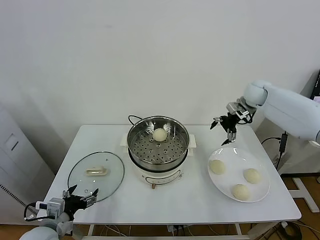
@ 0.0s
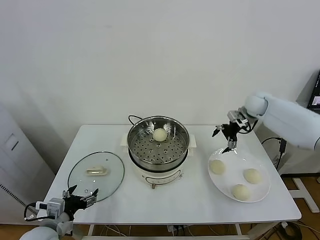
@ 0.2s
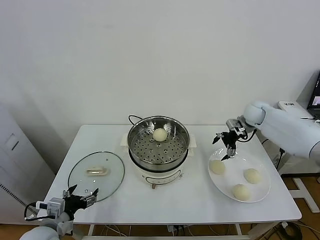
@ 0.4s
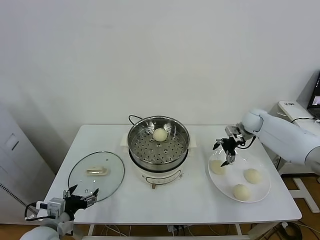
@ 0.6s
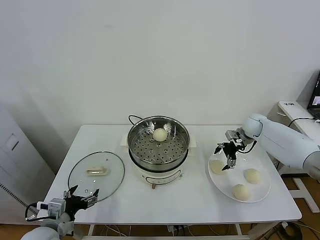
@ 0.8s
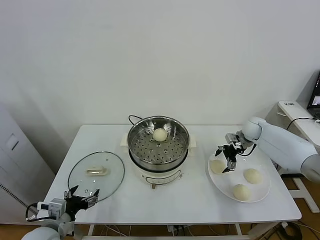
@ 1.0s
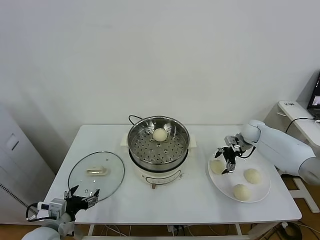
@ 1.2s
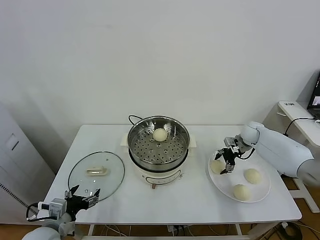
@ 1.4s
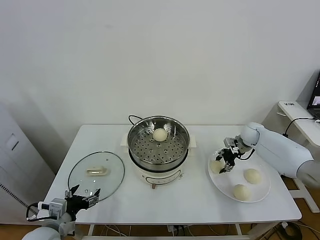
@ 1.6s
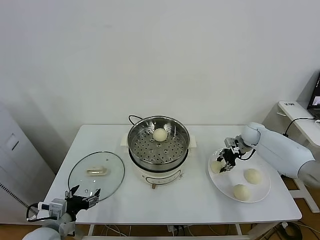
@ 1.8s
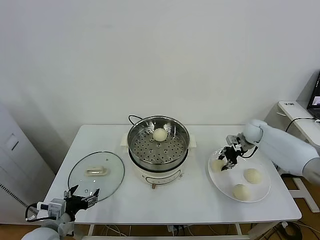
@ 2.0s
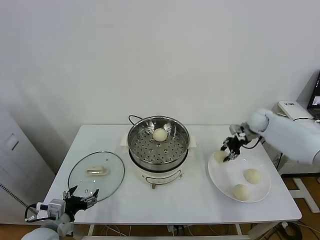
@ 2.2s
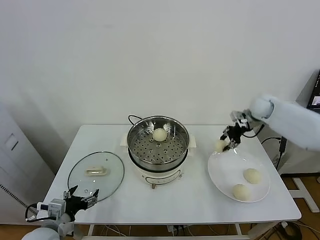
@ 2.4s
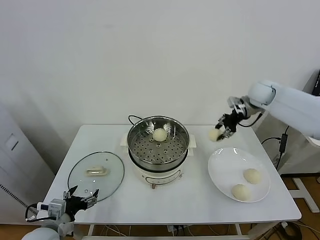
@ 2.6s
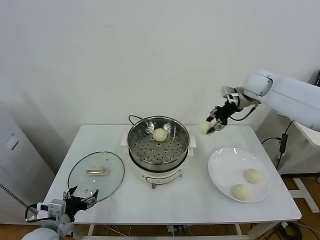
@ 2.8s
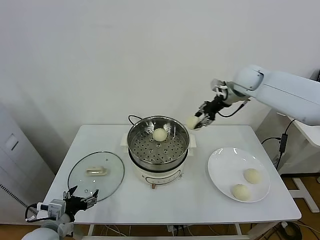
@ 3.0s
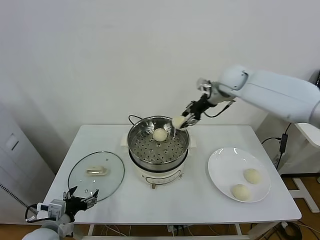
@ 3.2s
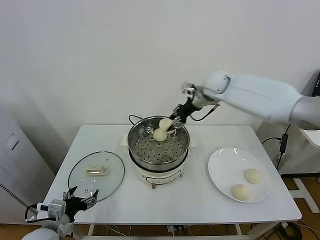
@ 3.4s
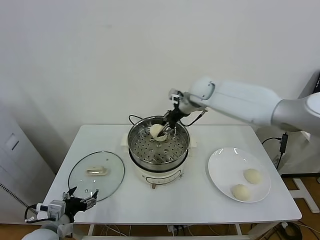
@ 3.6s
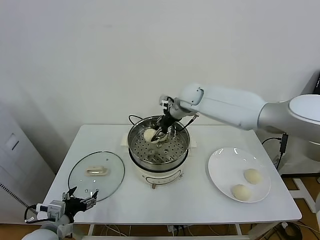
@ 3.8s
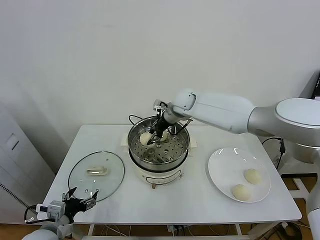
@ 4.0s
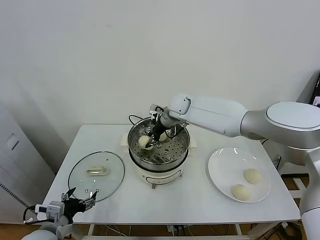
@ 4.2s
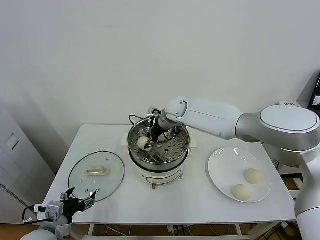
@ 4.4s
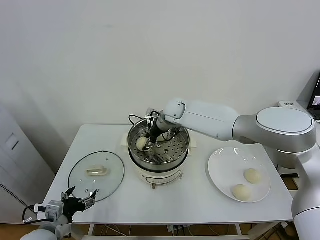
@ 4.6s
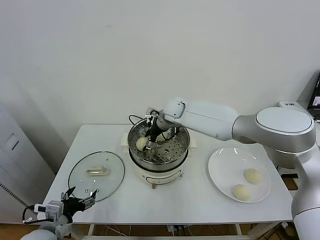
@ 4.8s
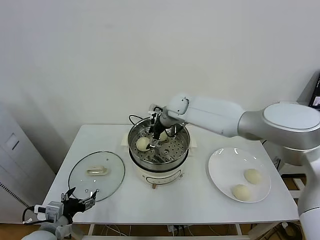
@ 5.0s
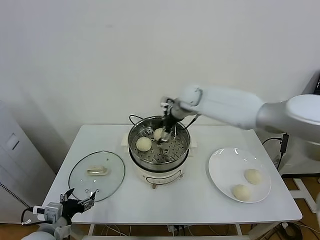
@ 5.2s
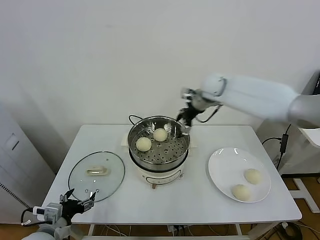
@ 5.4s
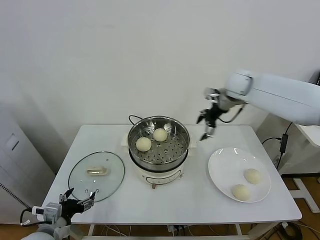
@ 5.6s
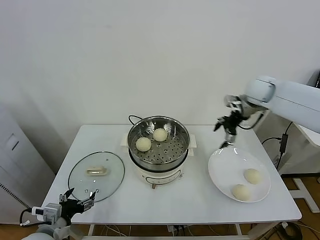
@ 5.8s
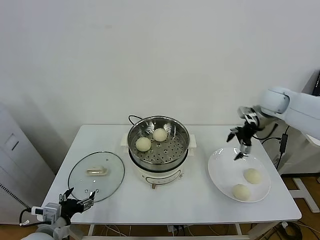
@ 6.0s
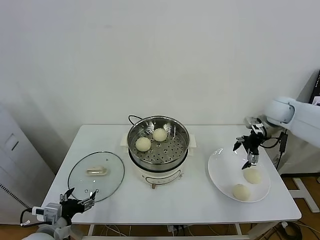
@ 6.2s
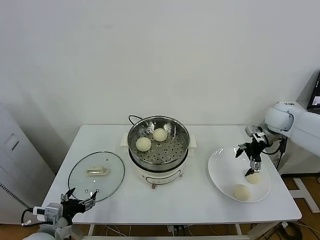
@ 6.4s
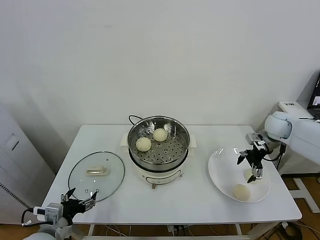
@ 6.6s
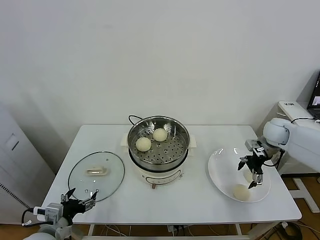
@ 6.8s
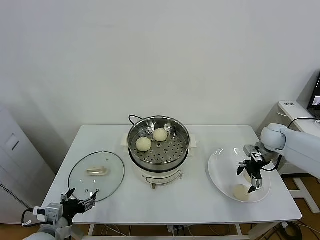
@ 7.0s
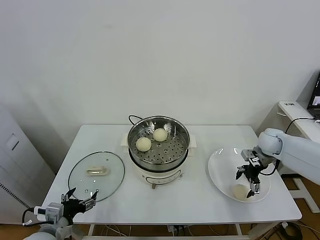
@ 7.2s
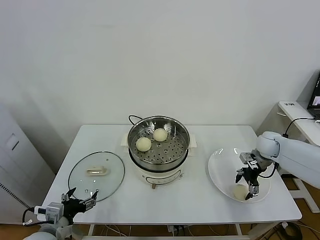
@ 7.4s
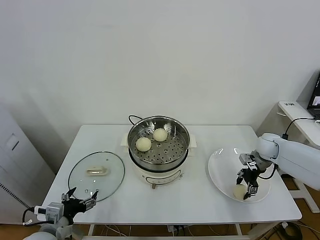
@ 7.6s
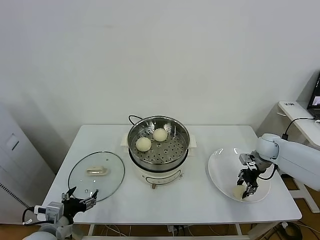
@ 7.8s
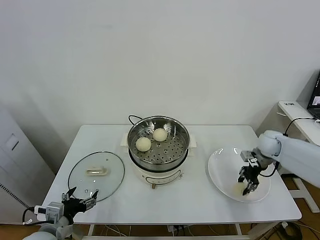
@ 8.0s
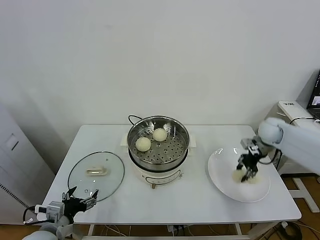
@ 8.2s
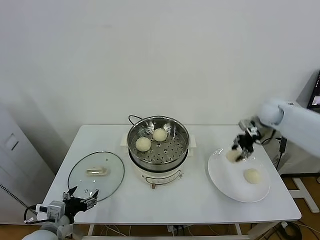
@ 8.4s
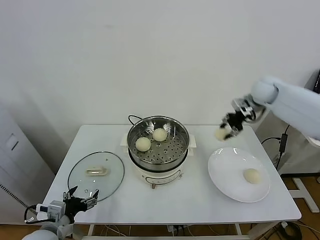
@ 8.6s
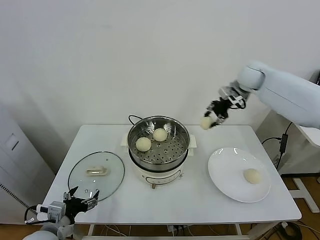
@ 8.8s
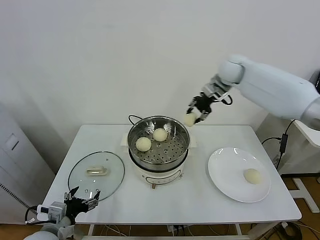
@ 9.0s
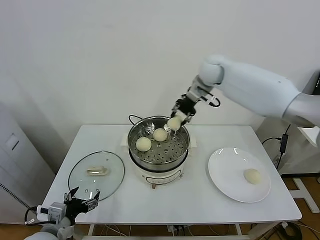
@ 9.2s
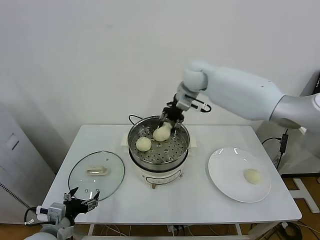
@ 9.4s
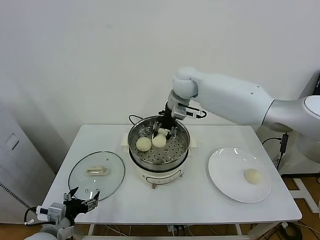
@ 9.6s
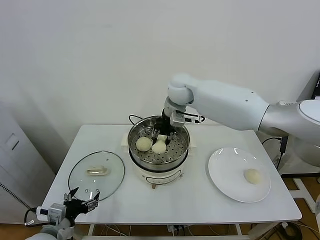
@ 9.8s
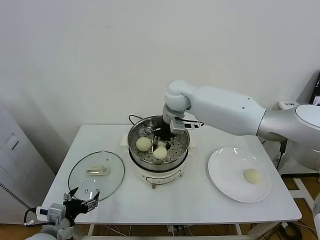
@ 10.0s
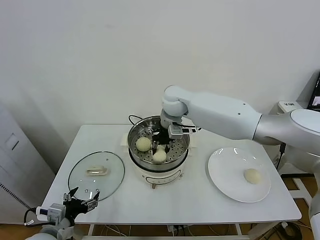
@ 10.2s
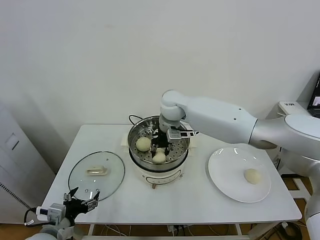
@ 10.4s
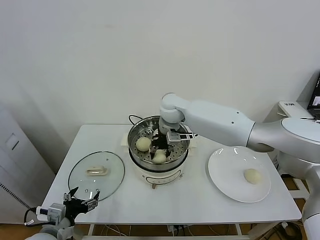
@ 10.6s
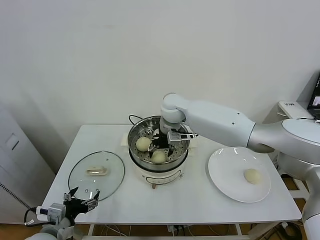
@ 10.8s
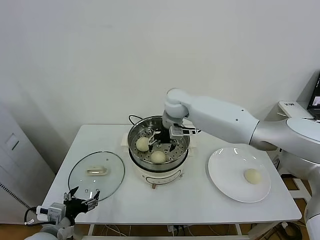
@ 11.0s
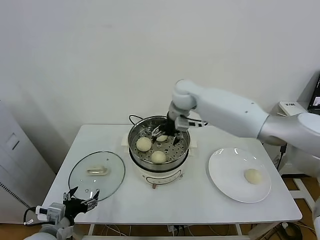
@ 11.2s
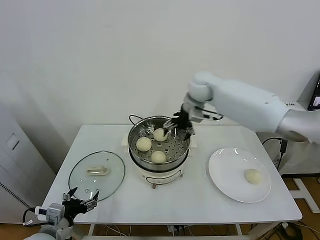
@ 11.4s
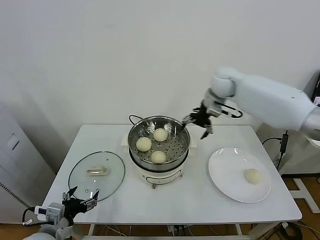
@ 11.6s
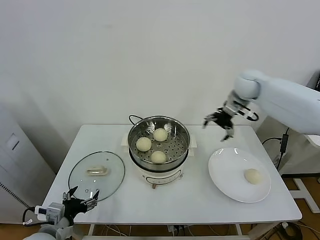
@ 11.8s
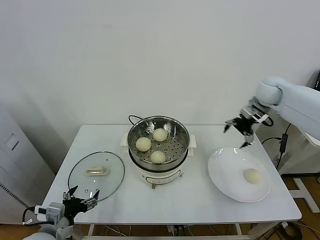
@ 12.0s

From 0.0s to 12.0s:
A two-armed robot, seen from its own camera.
Task of the whole recording: take steamed baozi put them in steamer.
Step, from 0.0s to 1.4s: Grasp the baozi in the plate with right gripper.
Step, from 1.6s to 4.8s: Place the baozi on the steamer with right gripper.
Step, from 5.0s to 7.6s: Grasp the baozi in the plate with right gripper.
Step, from 7.8s to 10.8s: Place the baozi on the steamer with right gripper.
From 0.0s to 1.6s: The right gripper is displaced downward by about 20 cm, and closes.
From 1.6s to 3.0s: The right gripper shifts roughly 25 cm upward and to the left.
From 3.0s to 4.4s: The right gripper goes roughly 25 cm to the left and downward.
From 4.4s to 6.0s: The right gripper goes approximately 30 cm to the right, and opens up.
From 6.0s to 7.6s: The right gripper goes approximately 20 cm downward, and closes its fingers.
From 7.6s to 9.0s: The right gripper is displaced upward, to the left and forward by roughly 35 cm, and closes.
From 9.0s to 10.4s: The right gripper goes approximately 20 cm to the left and downward.
From 10.4s to 12.0s: The right gripper heads to the right, covering some 35 cm, and opens its fingers.

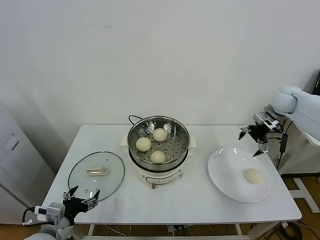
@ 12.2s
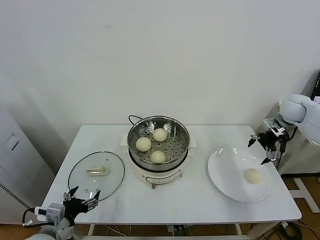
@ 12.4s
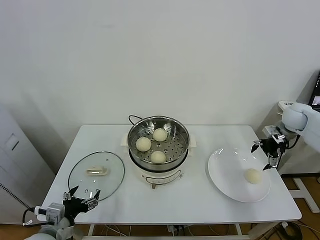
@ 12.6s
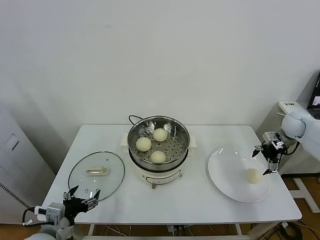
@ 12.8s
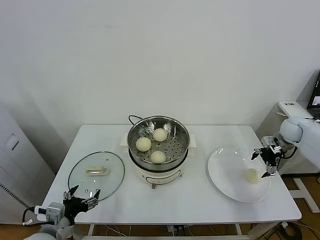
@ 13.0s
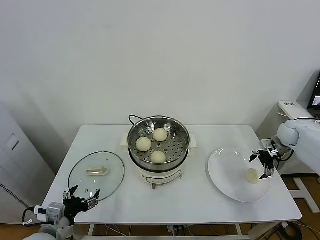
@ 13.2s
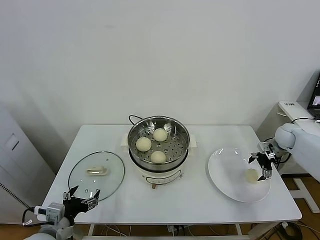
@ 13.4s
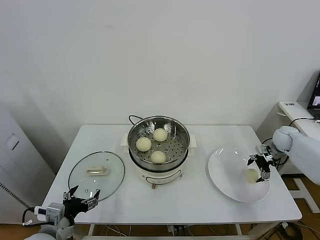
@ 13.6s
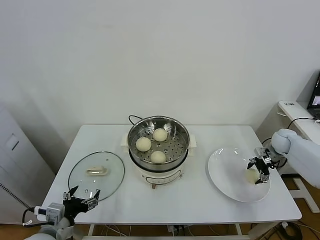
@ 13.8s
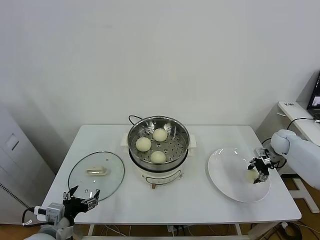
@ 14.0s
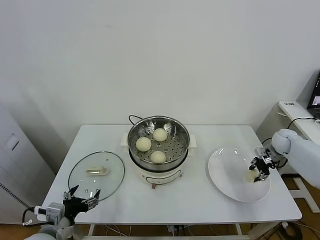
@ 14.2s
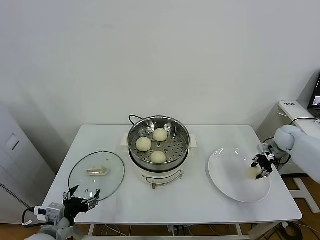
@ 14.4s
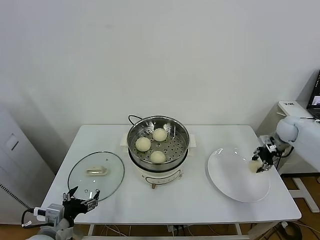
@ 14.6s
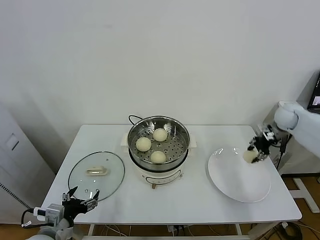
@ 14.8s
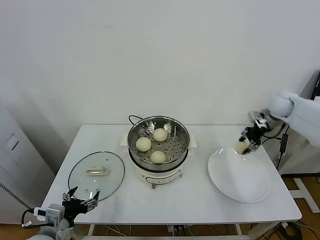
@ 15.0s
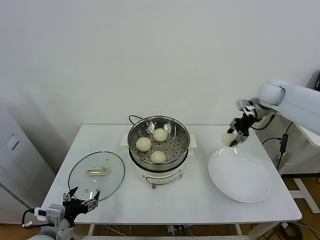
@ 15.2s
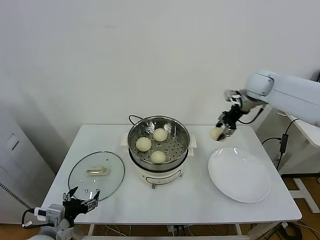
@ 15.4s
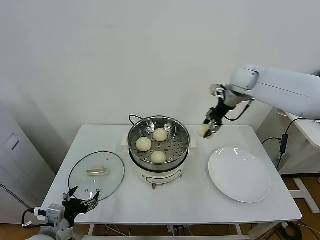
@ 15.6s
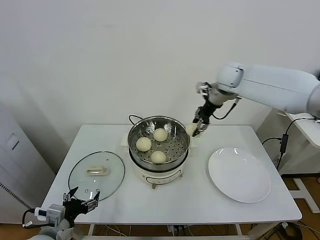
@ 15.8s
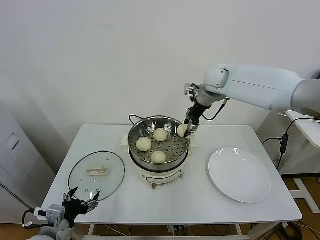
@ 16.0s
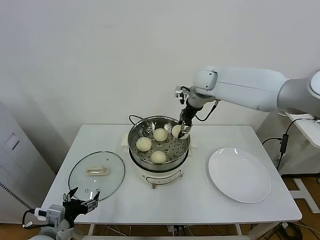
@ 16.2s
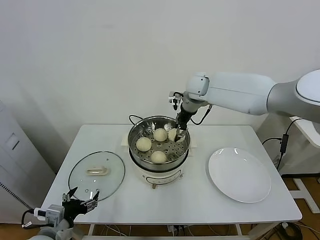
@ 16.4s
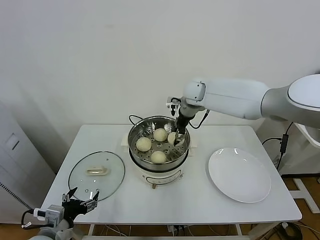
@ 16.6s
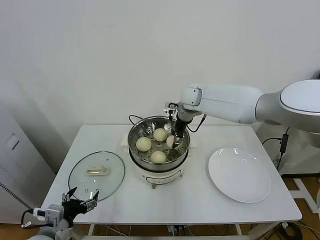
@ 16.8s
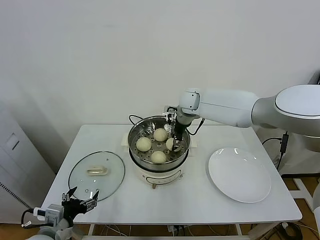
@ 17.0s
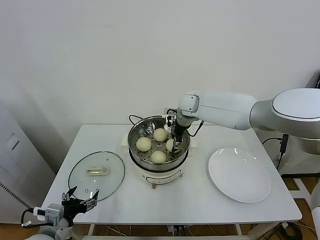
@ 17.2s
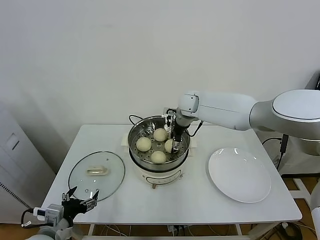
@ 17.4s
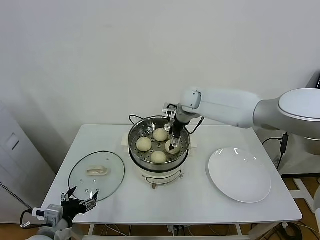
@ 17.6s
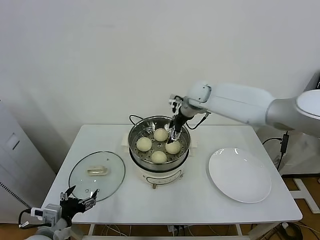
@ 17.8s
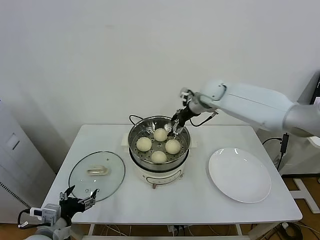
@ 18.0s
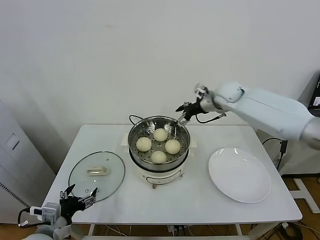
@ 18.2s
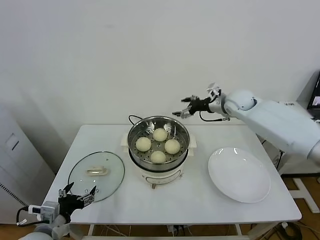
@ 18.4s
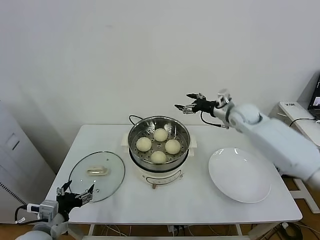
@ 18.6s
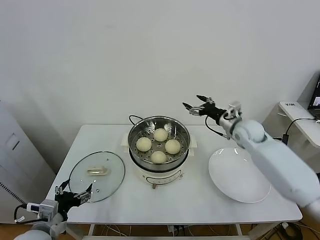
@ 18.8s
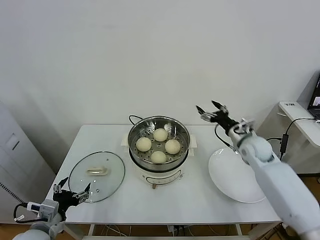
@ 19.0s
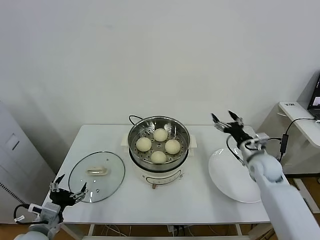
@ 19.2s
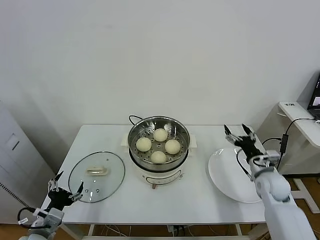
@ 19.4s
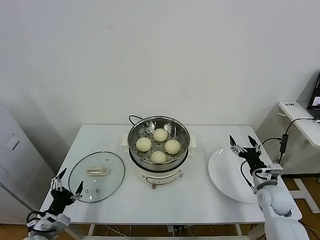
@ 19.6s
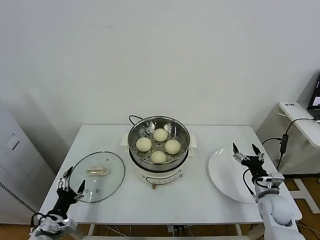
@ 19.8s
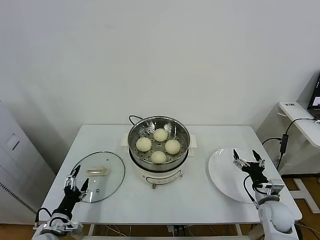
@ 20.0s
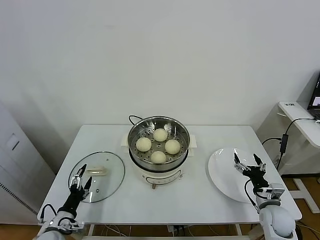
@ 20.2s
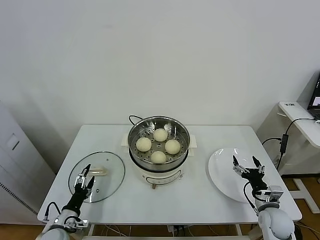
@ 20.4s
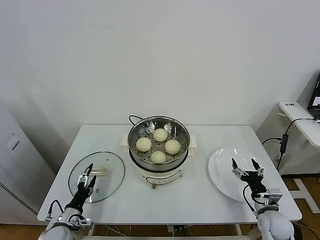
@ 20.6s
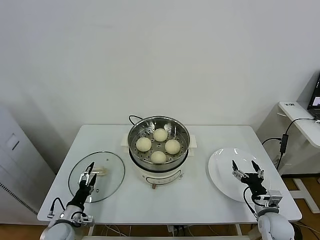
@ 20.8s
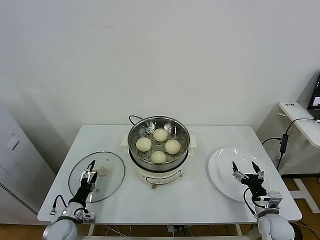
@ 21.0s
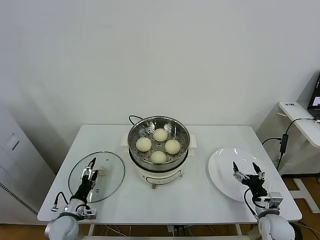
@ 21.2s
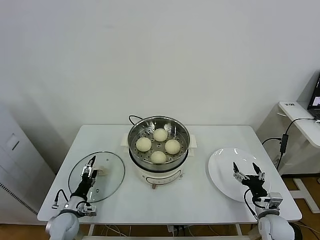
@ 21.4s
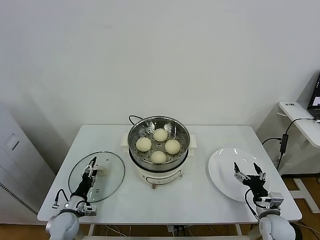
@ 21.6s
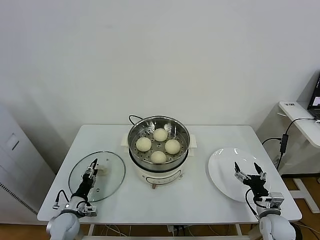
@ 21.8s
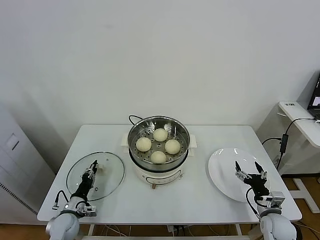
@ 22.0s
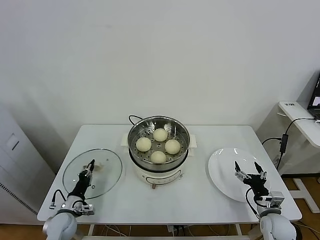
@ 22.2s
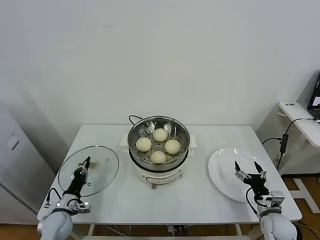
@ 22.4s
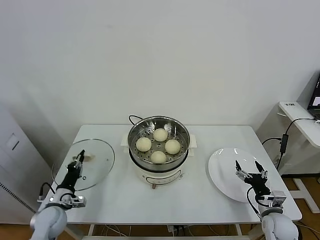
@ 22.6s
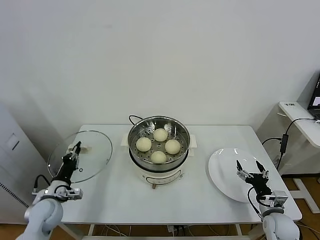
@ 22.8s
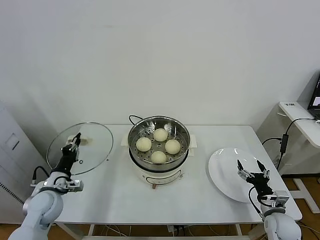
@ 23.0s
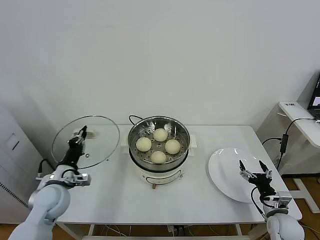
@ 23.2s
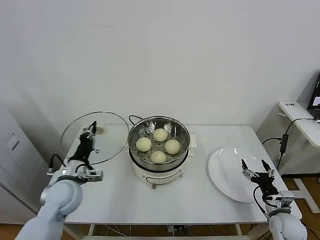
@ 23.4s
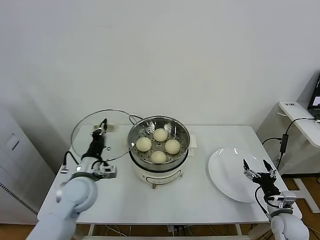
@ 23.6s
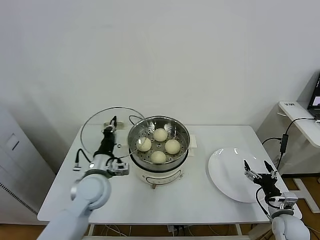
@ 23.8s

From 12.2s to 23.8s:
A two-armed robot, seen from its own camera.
Task of the whole recording: take steamed baozi put them in steamer.
Step, from 12.2s to 13.8s: Grasp the baozi in the plate with right gripper.
Step, from 14.2s to 17.6s: Place the baozi on the steamer with right gripper.
Step, from 17.8s to 22.2s: Grasp the pot lid with left gripper.
From 12.2s to 13.6s: The right gripper heads downward and to the right, covering roughly 20 cm.
From 13.6s to 15.0s: The right gripper is displaced upward and to the left by about 15 cm, and closes up.
From 15.0s to 16.6s: The right gripper moves to the left, about 30 cm.
From 16.6s to 18.0s: The right gripper travels to the right by roughly 5 cm, and opens its fingers.
From 18.0s to 19.4s: The right gripper moves backward, downward and to the right, approximately 35 cm.
From 19.4s to 21.0s: The left gripper travels downward and forward by about 15 cm. The right gripper goes some 15 cm backward and downward.
From 21.0s to 22.4s: The left gripper closes its fingers.
From 22.4s to 23.8s: The left gripper heads upward and to the right, covering about 25 cm.
